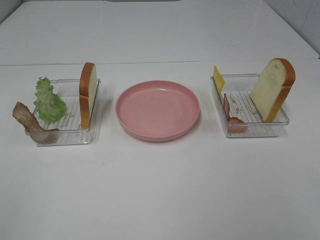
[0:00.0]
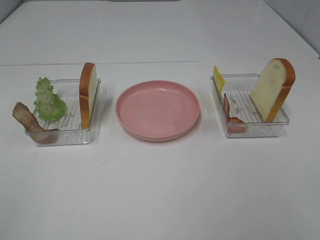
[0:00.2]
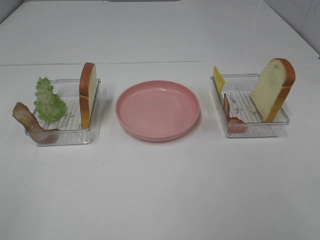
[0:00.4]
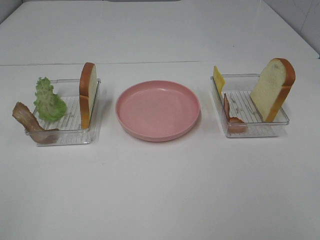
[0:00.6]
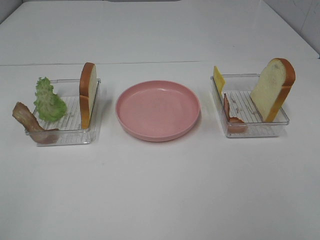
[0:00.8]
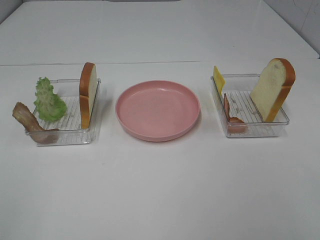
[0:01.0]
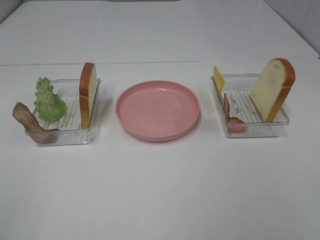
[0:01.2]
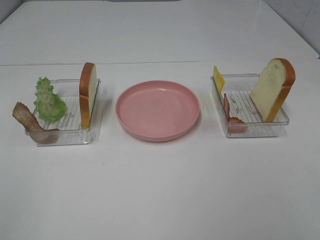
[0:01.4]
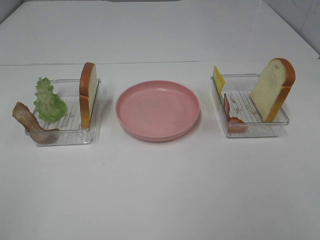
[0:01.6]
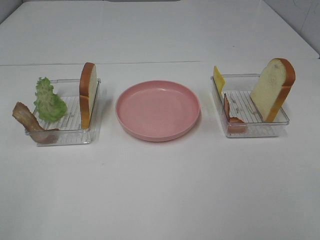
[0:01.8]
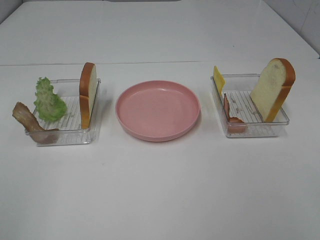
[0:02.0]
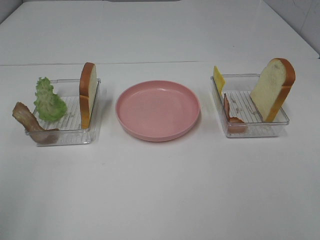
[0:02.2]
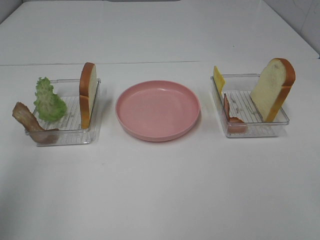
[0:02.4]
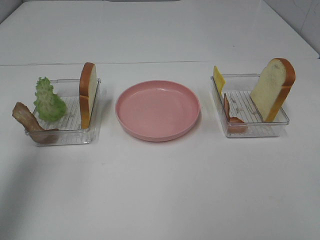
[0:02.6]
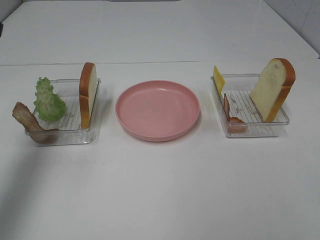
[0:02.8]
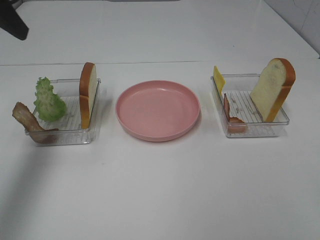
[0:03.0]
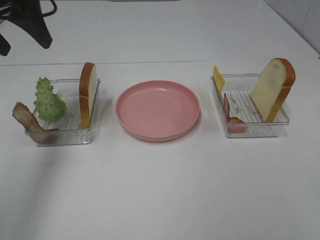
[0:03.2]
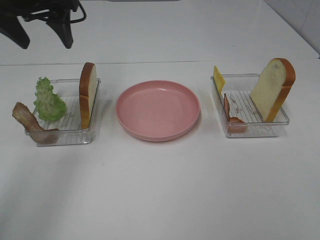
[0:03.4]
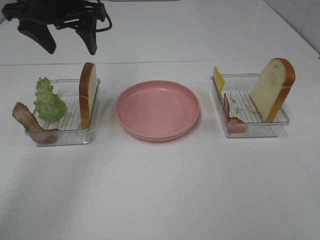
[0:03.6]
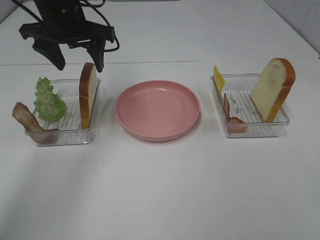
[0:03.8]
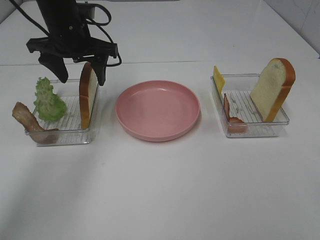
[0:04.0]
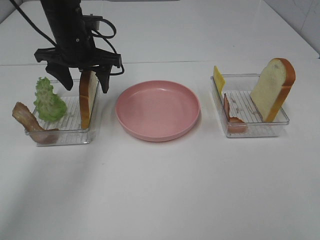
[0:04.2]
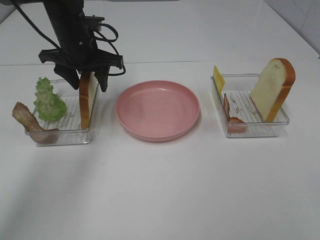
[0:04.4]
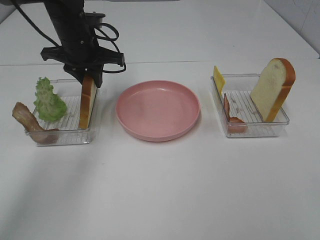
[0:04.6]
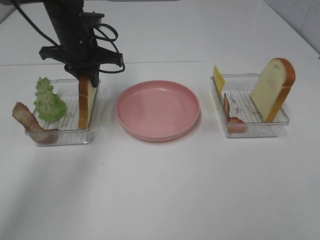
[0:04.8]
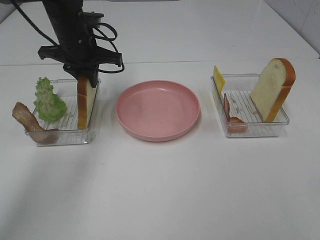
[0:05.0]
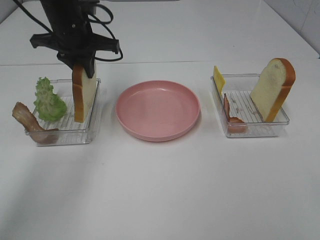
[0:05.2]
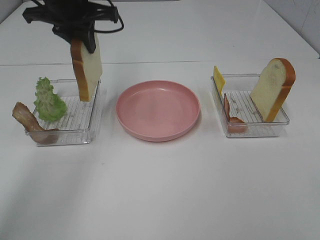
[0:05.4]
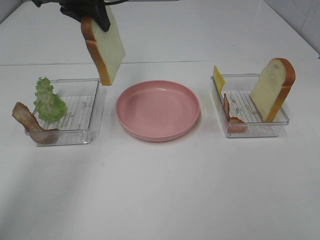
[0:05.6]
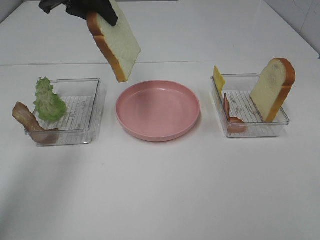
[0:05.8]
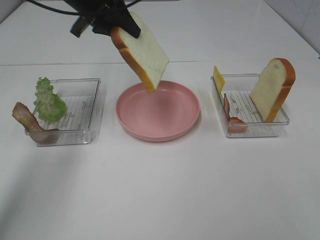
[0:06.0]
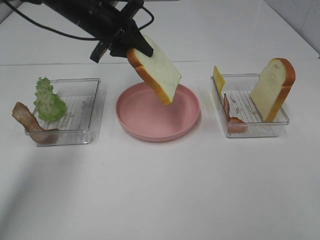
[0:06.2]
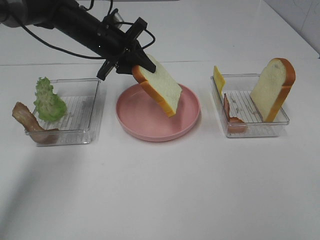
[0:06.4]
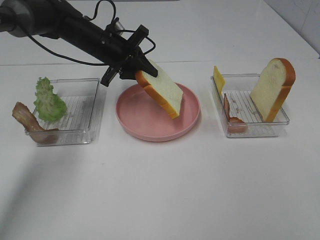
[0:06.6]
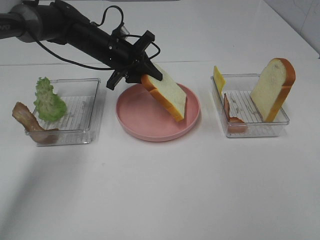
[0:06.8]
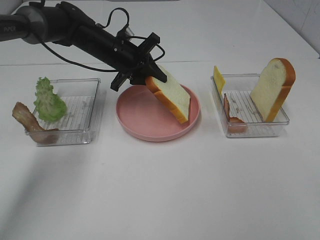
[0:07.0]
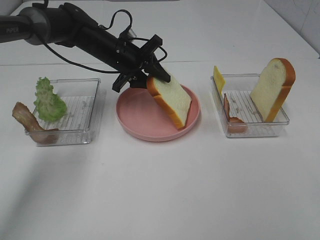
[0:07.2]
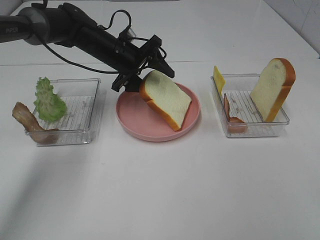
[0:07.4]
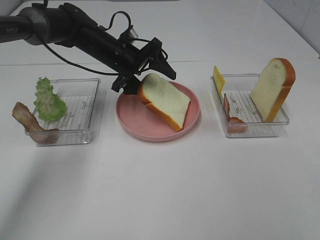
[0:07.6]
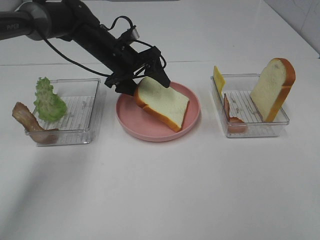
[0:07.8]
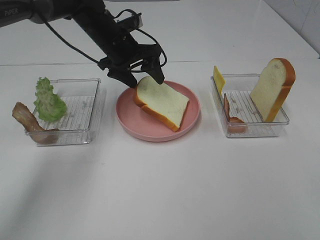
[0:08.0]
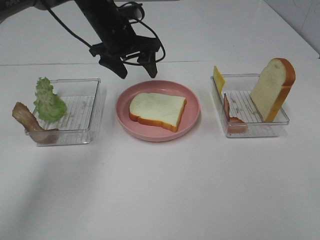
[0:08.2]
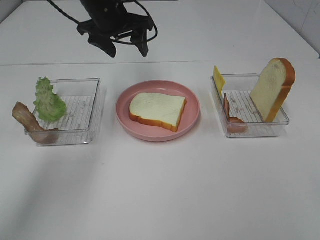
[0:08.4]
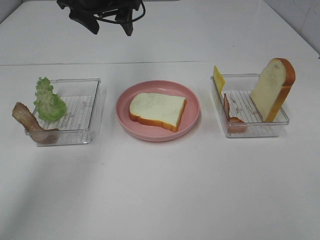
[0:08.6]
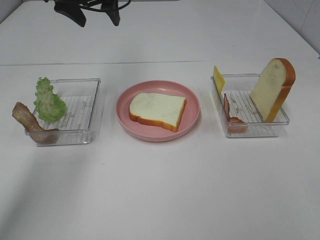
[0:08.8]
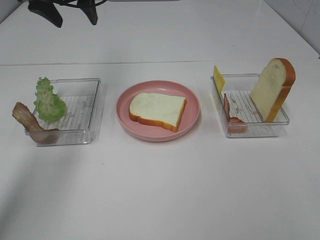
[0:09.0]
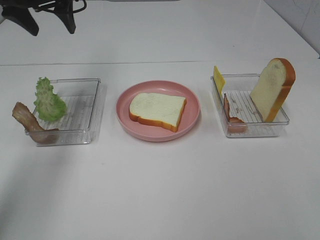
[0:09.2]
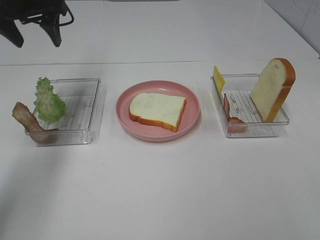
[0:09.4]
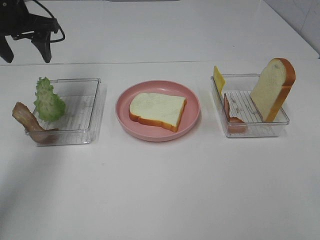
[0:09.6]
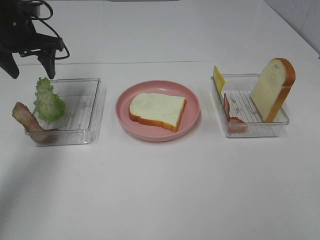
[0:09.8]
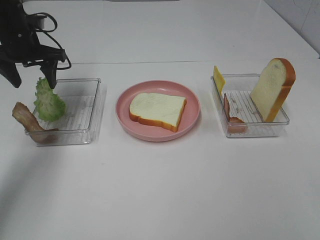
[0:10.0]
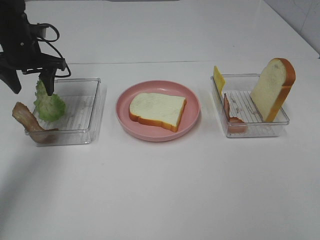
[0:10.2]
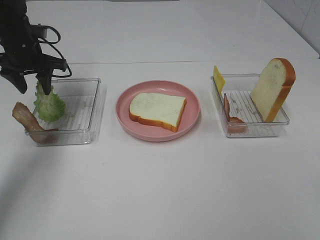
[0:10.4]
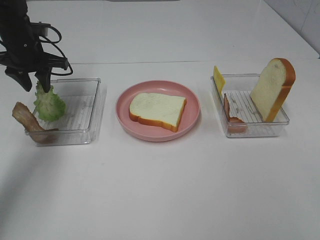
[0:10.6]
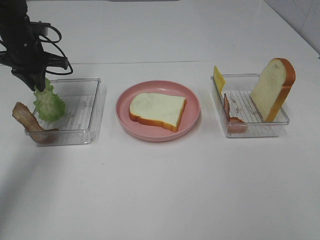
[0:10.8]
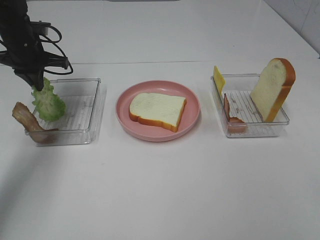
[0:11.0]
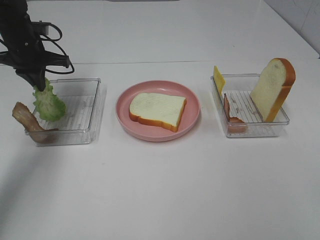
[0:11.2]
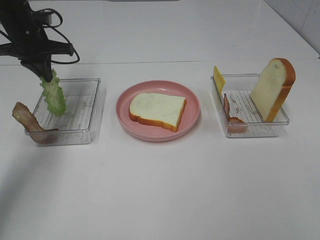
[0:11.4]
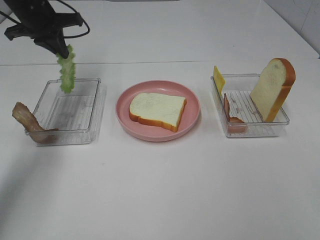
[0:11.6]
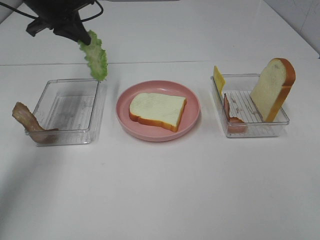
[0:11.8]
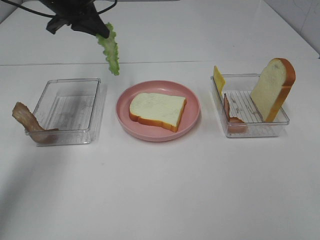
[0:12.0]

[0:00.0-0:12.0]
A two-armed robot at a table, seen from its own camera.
Task of the whole recording: Make sandwiches.
Step, 0.0 to 4.6 s: Left hand:grab the bread slice.
Step, 4.8 to 8.0 s: Left hand:place the bread slice on the plate.
Step, 8.2 to 10.8 s: Left hand:grab the lettuce slice.
0.0 to 1.6 s: Both grippers stay put.
1.6 to 3.0 s: The left gripper moves forward, approximately 30 cm.
3.0 to 4.4 s: The left gripper is displaced downward, forward and to the right by some 20 cm.
4.4 to 6.0 s: The left gripper shifts some 5 cm upward, and closes up.
6.0 to 7.6 s: The left gripper moves downward, about 15 cm, and opens its fingers.
7.6 to 9.0 s: The left gripper travels upward and to the left by roughly 20 cm.
9.0 to 10.4 s: The left gripper heads downward and to the left, covering roughly 15 cm.
10.4 to 12.0 s: The left gripper moves to the right and upward, some 10 cm, and closes up.

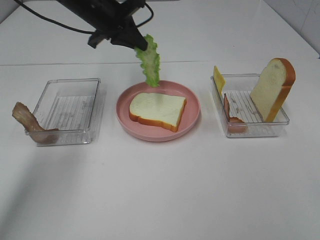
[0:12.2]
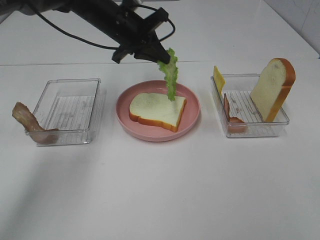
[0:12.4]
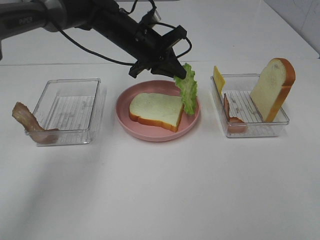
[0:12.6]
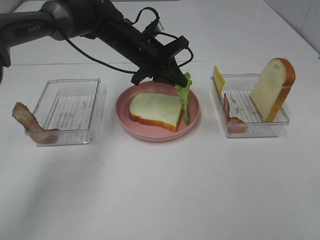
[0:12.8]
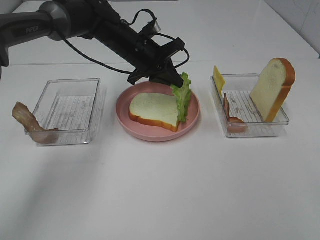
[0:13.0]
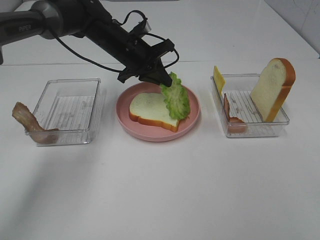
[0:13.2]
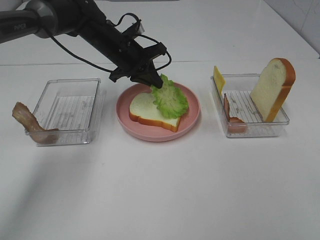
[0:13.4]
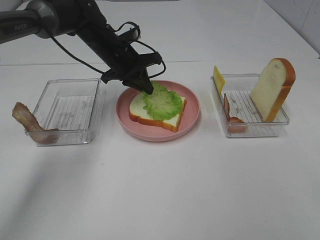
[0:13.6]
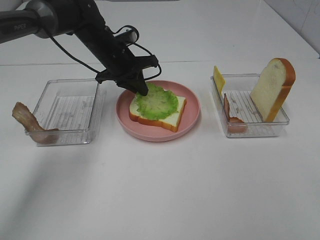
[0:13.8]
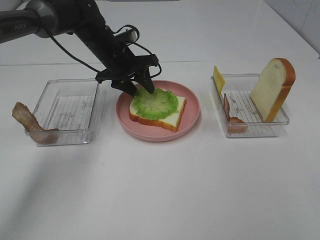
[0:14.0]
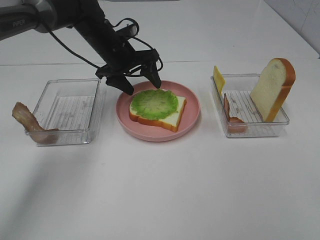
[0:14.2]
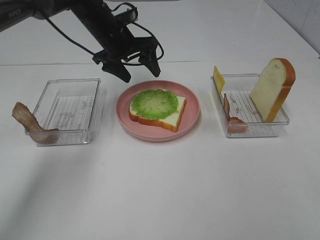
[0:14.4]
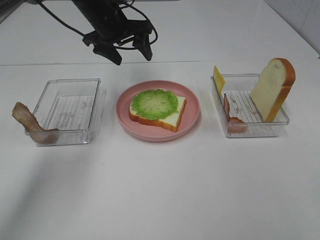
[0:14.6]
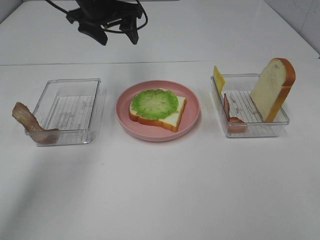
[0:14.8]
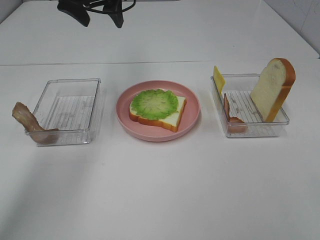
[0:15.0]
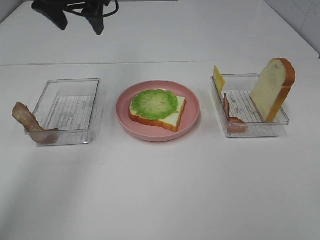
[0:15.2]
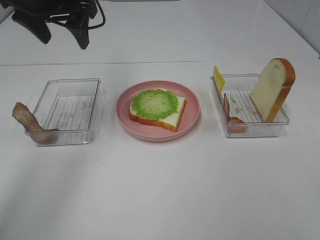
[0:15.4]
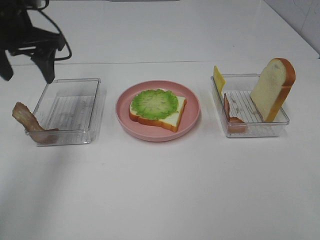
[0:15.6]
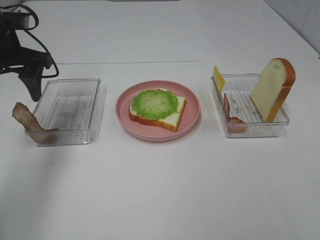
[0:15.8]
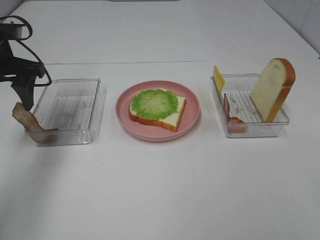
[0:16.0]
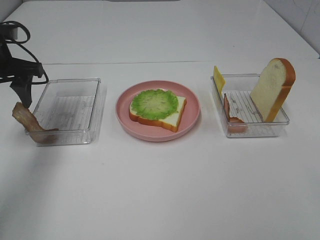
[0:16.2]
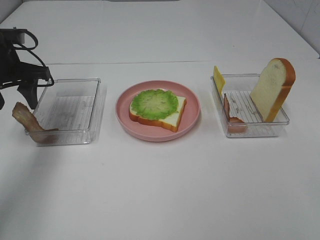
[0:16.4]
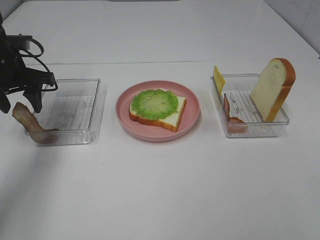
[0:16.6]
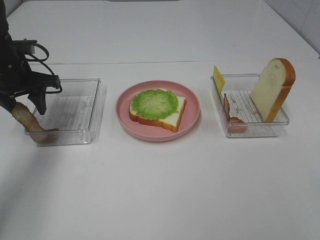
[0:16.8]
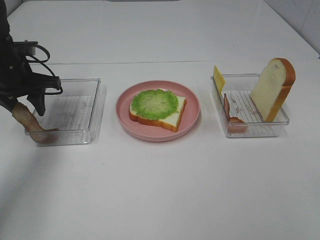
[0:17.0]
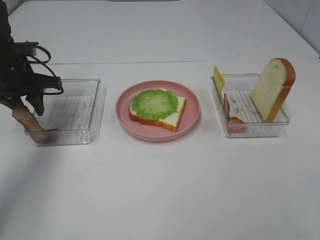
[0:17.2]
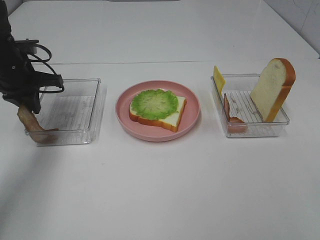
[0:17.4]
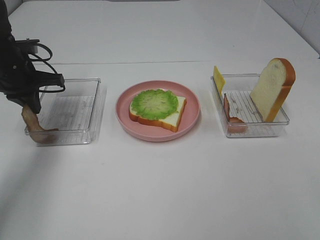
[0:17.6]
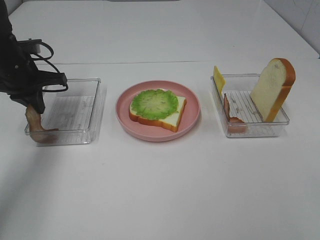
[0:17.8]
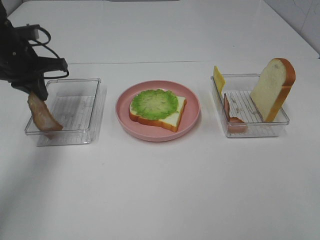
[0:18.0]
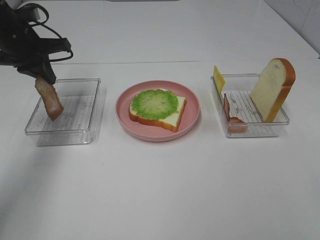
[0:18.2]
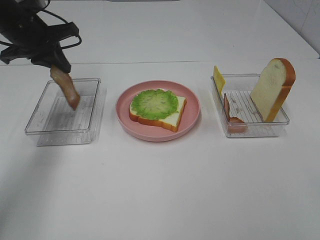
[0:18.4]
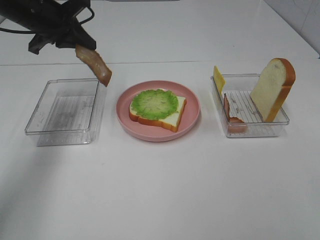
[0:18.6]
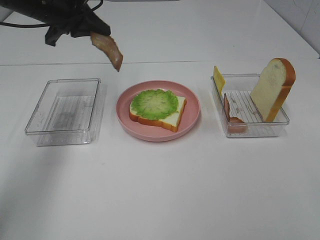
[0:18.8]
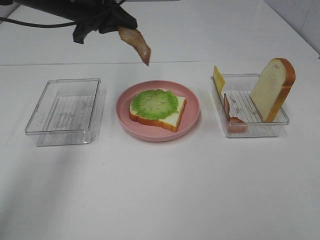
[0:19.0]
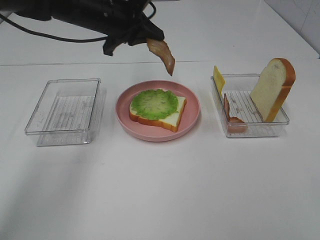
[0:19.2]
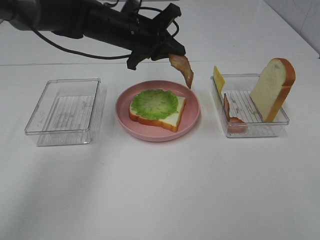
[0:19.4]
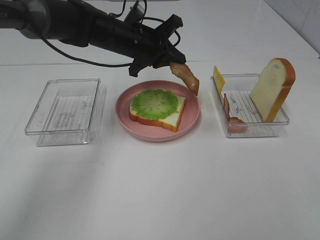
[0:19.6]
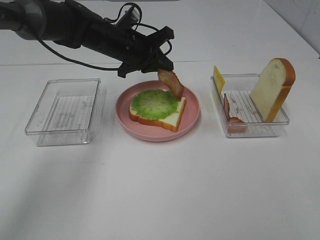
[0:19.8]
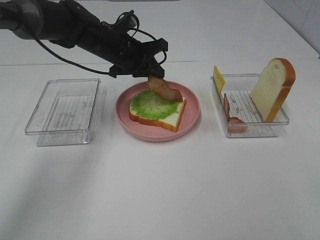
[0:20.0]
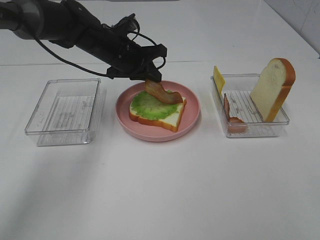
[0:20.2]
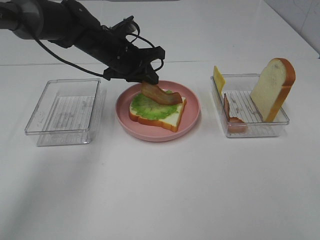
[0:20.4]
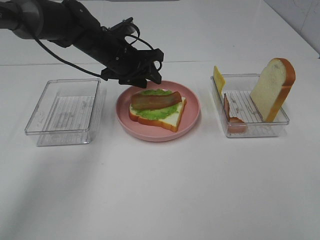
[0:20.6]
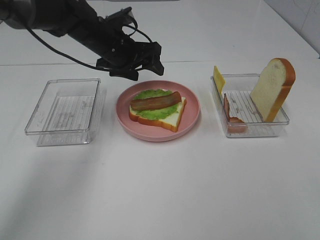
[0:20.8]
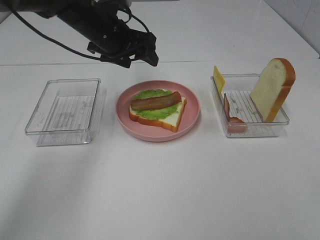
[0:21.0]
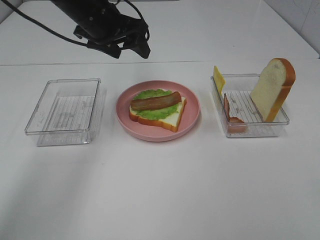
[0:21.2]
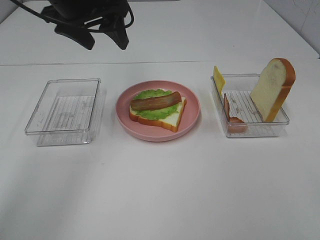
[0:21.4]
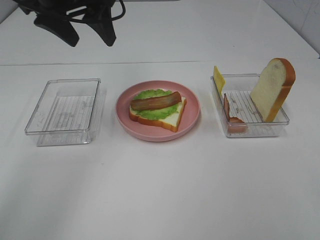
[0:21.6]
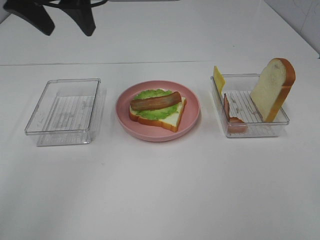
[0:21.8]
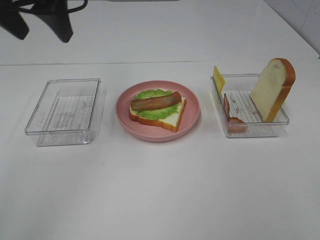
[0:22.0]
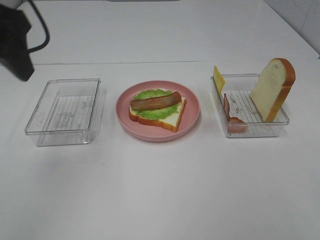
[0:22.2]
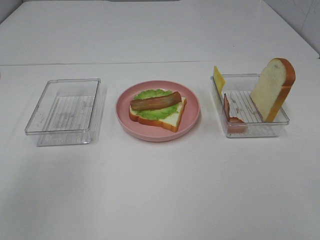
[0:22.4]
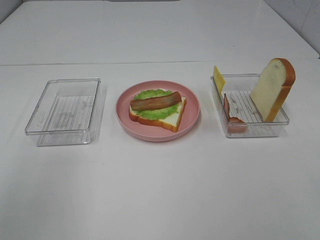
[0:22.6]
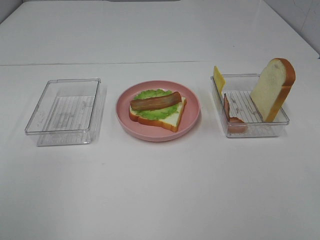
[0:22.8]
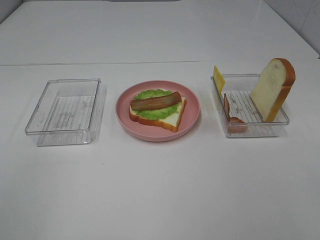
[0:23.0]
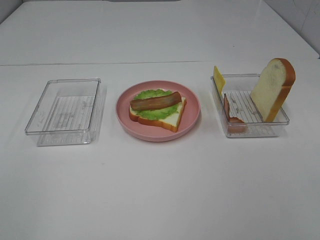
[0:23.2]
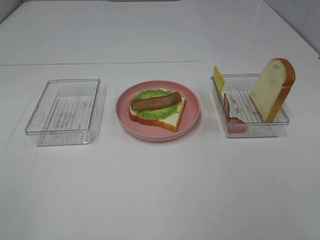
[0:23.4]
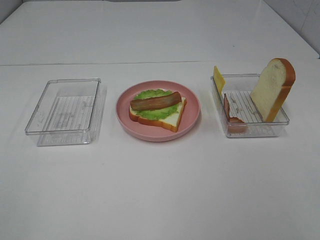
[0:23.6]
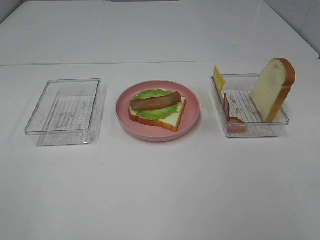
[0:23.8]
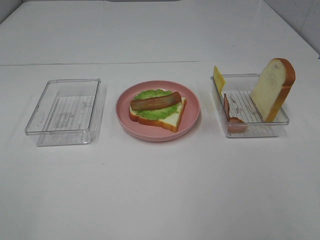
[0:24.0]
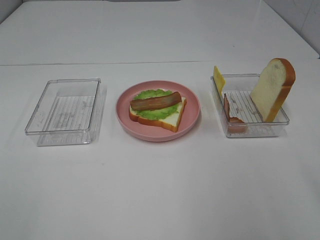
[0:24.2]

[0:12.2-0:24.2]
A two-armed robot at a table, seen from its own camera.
Task of the whole recording: Make sandwiches.
Step, 12.2 to 14.2 s: Left hand:place the lettuce slice on the bread slice.
Step, 14.4 to 17.6 s: Left hand:grab the bacon.
Step, 17.8 to 20.8 s: Left hand:place bacon on lettuce slice.
12.2 to 13.8 s: The left gripper shifts about 10 cm downward.
13.8 to 15.2 s: The left gripper travels upward by about 15 cm, and opens.
15.2 to 16.6 s: The left gripper is displaced downward and to the left by roughly 15 cm.
16.6 to 18.2 s: The left gripper closes.
18.2 to 19.8 s: The left gripper heads to the right, covering about 15 cm.
19.8 to 21.2 s: The left gripper shifts roughly 10 cm upward, and opens.
21.2 to 22.6 s: The left gripper shifts approximately 30 cm backward and to the left.
